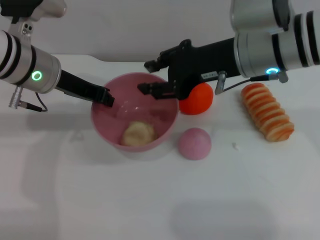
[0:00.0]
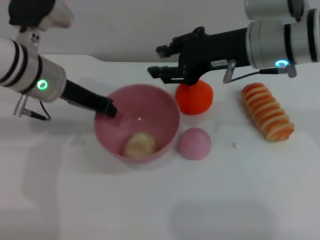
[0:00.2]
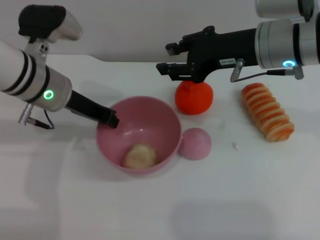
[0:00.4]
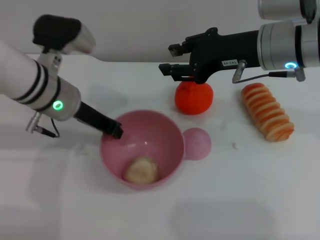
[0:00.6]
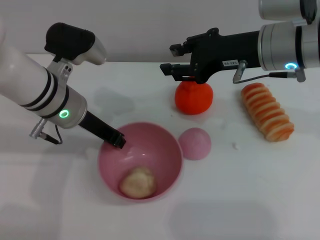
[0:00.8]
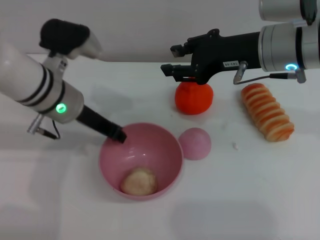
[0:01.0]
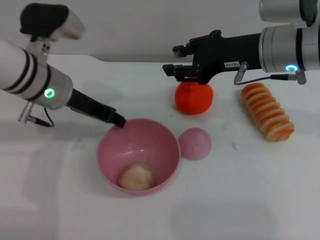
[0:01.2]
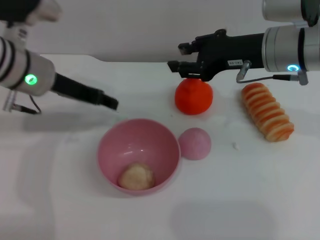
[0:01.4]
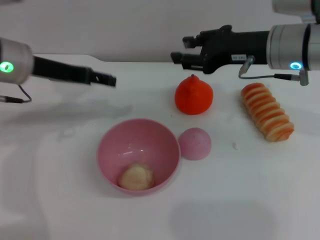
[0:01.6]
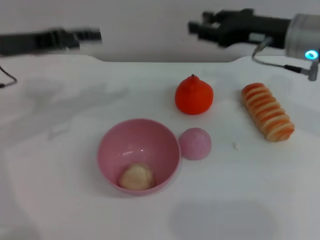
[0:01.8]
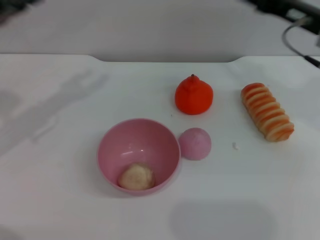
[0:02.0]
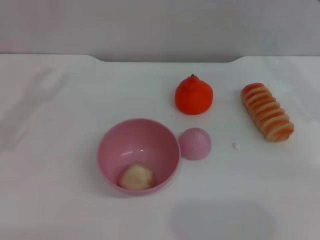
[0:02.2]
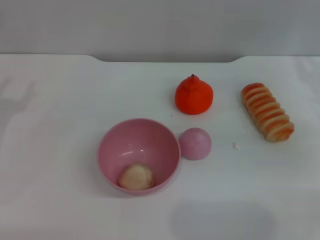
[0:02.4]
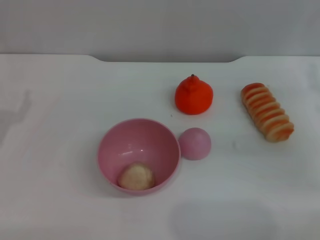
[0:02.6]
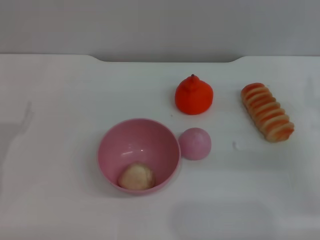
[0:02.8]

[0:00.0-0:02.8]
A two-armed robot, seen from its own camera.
Task of the whole recording: put the egg yolk pastry into the pink bowl and pour it out repeatedly.
Step, 0:00.0 to 0:01.2: Place the bowl on the table.
0:00.0 to 0:01.4: The left gripper opens up.
0:01.4 to 0:02.8: The left gripper shifts approximately 20 cm backward, to the left and downward, and opens up. Meanwhile the right gripper travels downward, to the right and backward by roughly 20 cm.
